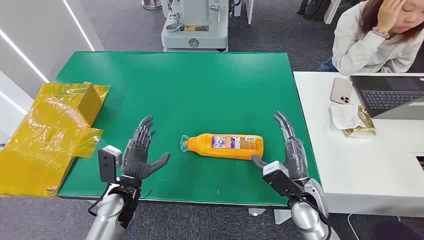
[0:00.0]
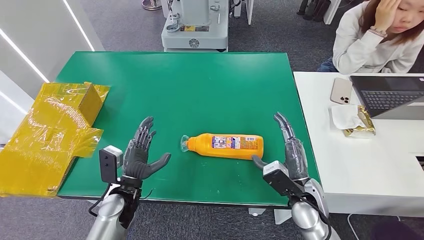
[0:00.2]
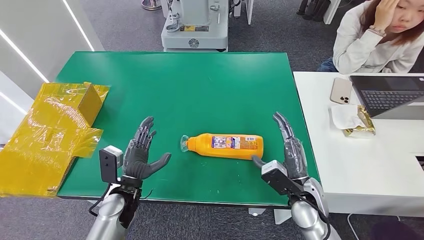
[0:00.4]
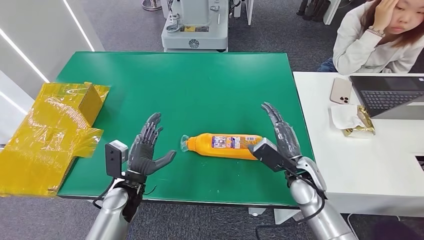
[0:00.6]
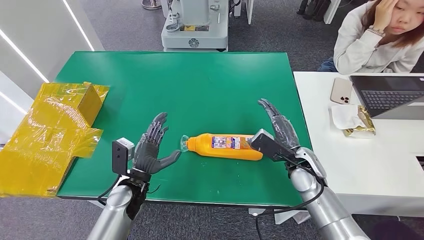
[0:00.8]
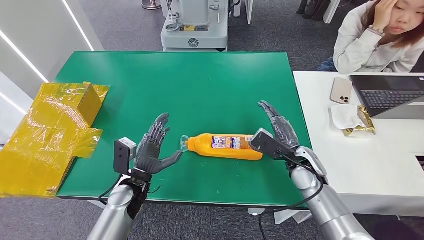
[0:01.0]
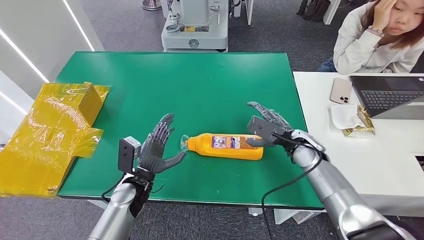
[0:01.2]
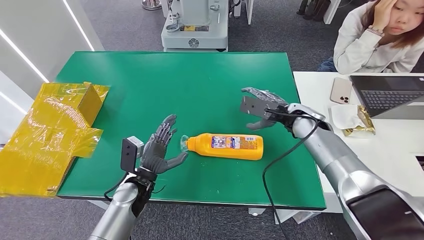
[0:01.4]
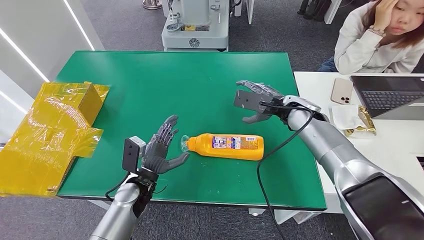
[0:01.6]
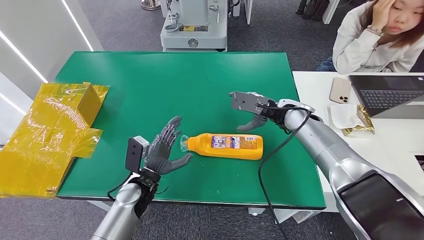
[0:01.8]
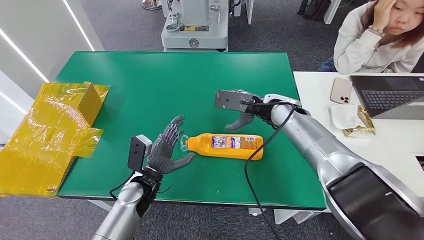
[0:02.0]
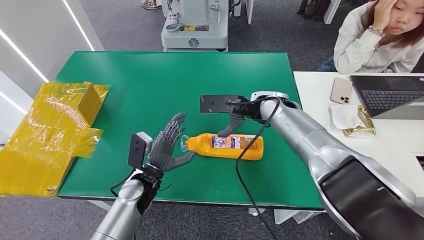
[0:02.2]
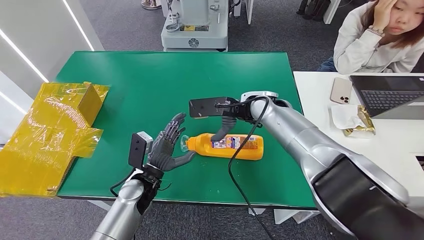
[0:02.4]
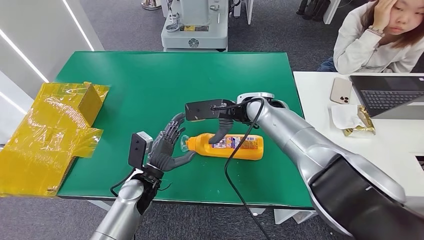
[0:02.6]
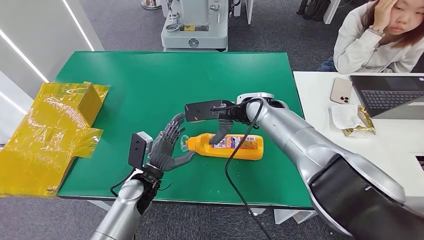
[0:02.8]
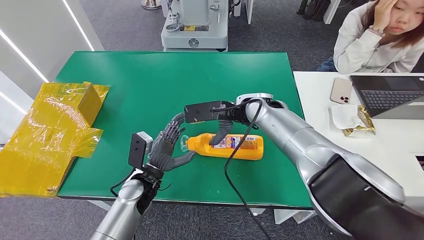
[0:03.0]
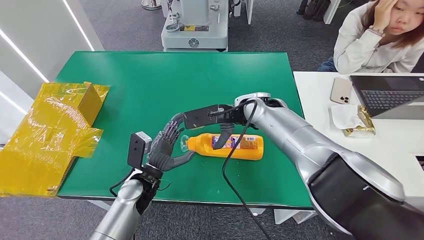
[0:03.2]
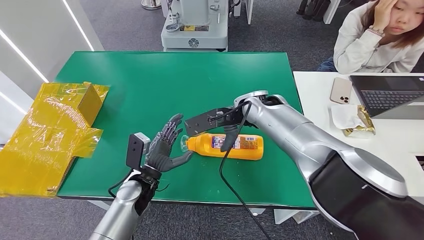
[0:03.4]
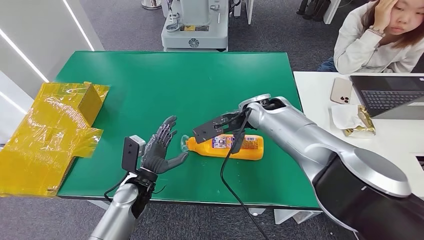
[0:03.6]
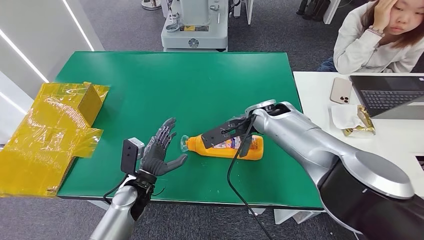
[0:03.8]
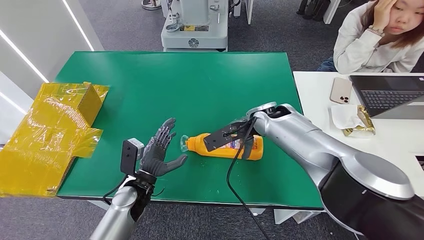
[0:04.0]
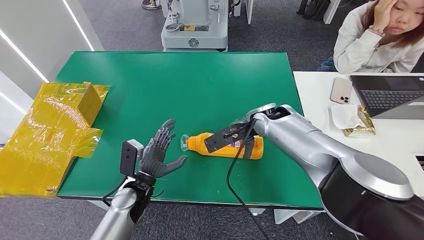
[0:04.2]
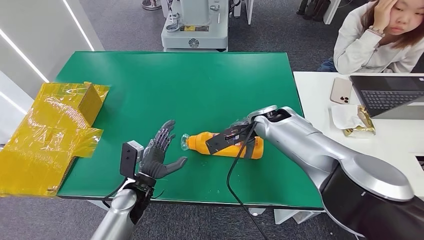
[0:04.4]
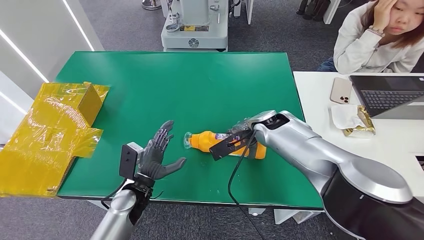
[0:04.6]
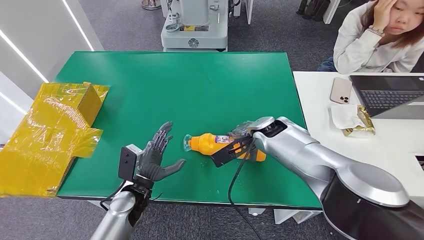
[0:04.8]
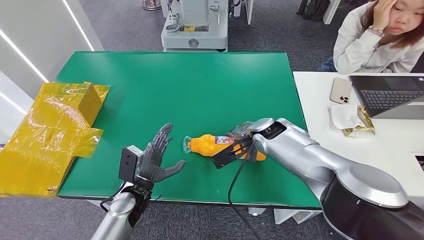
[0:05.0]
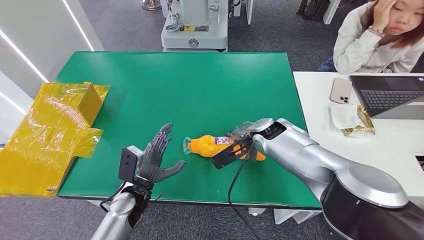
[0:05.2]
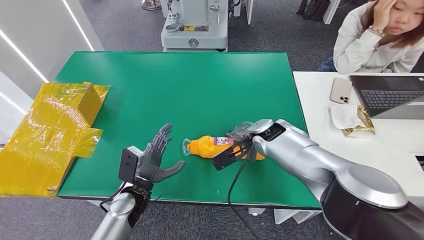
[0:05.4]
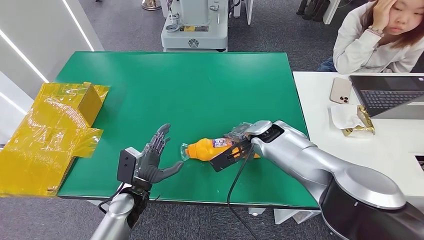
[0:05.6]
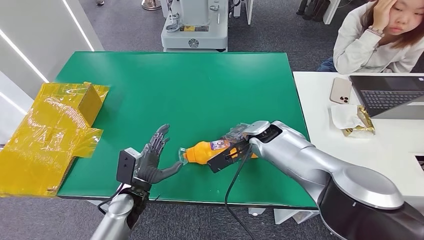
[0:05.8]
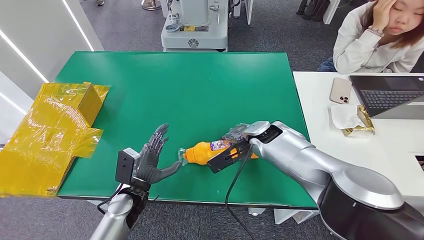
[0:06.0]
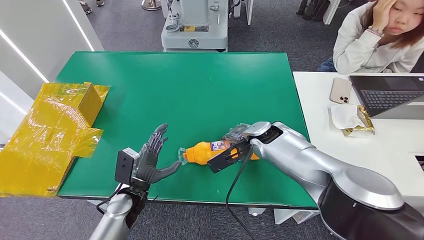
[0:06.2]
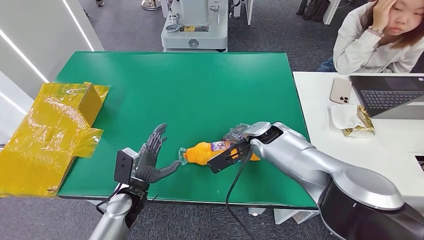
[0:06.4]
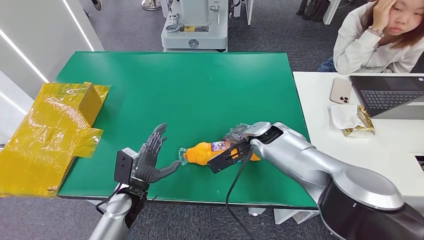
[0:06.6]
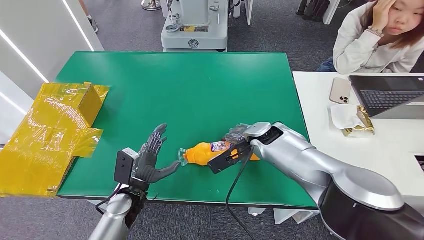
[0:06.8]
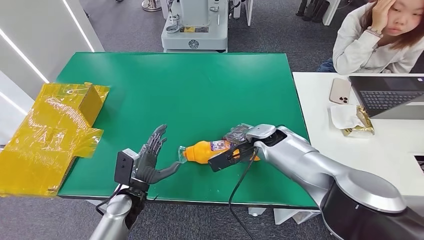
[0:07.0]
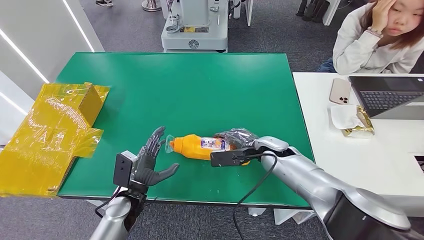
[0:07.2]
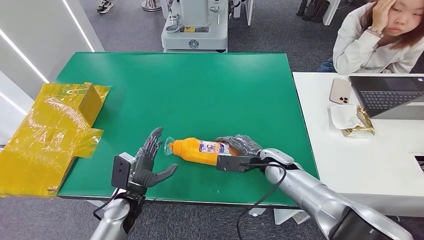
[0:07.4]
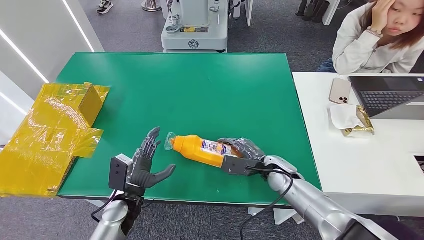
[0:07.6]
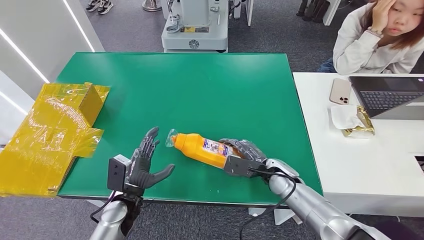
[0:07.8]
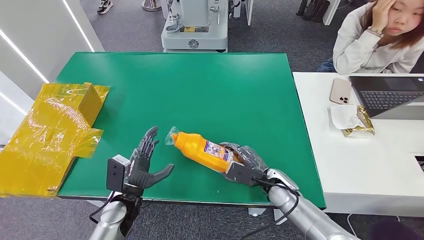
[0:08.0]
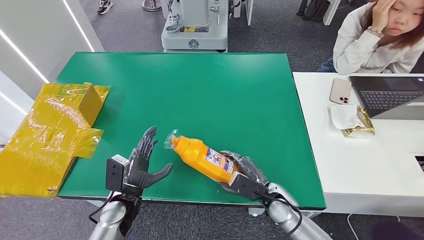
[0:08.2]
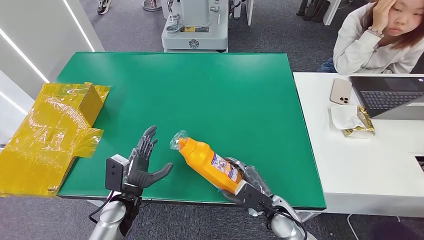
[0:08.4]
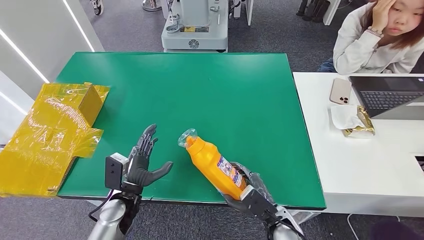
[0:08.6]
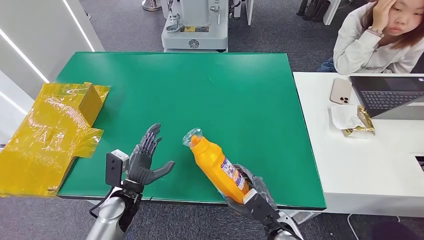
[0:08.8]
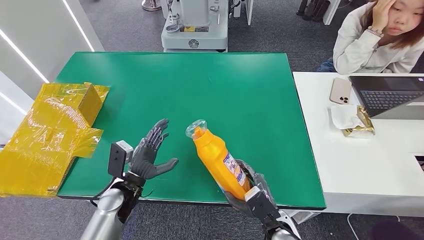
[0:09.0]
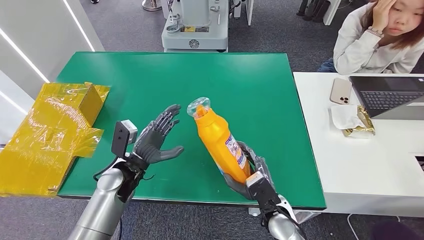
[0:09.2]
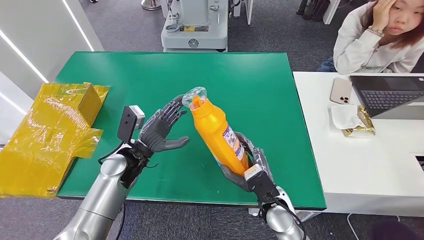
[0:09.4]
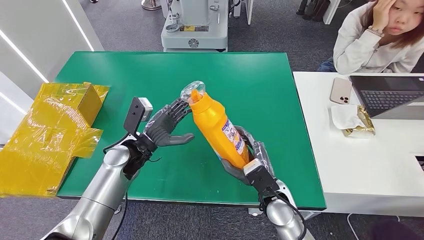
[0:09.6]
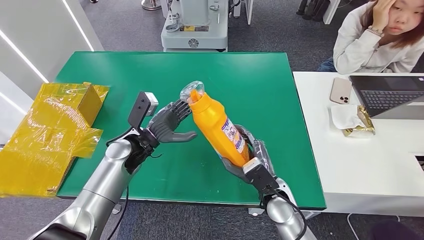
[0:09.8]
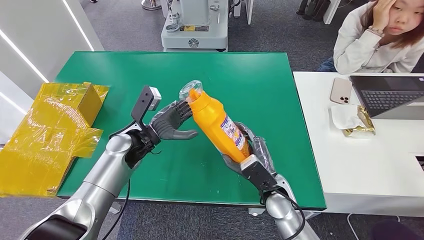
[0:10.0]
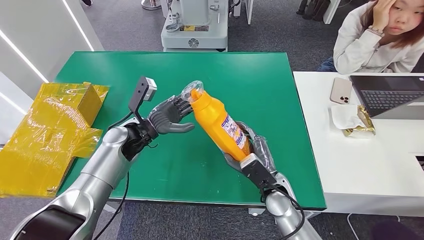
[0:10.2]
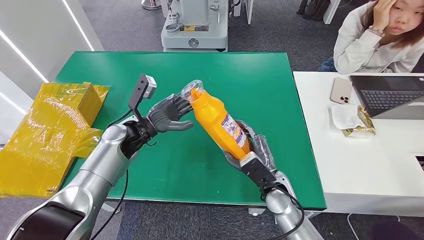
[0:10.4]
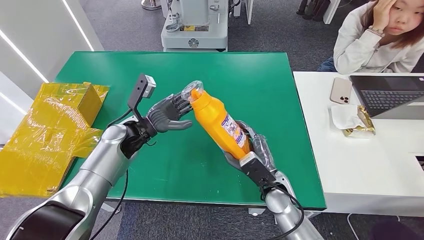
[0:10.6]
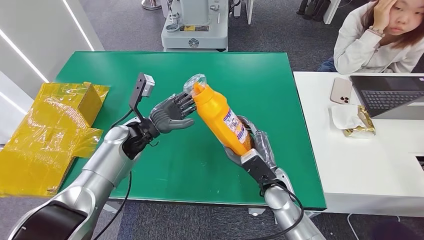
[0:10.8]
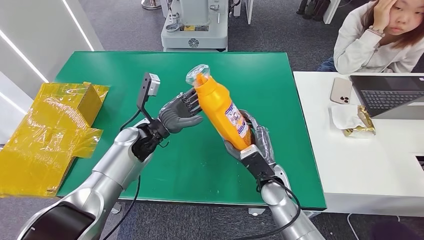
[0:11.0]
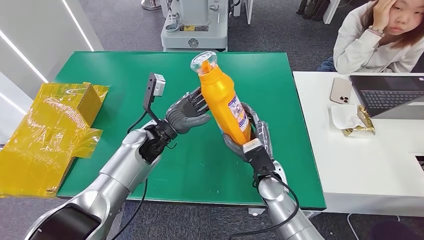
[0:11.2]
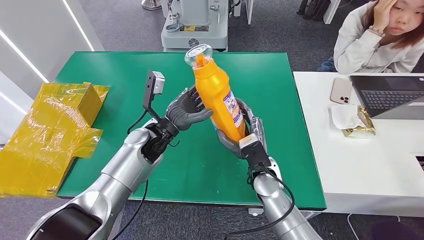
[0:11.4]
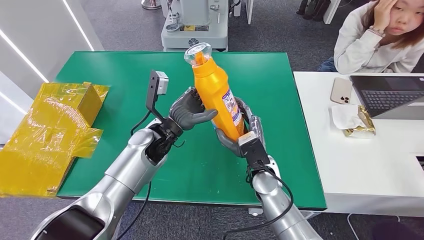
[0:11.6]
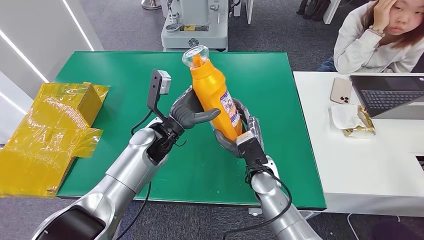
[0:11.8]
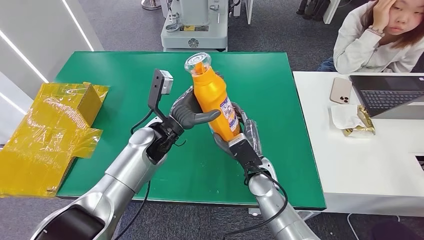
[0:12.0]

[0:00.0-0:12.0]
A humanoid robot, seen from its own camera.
Step, 0:00.0 to 0:10.4: Pick up the bottle from the table.
0:01.6 to 0:03.0: The right hand travels to the left by some 10 cm.
0:03.0 to 0:04.4: The right hand changes place by some 5 cm.
0:04.4 to 0:06.0: The hands move only a little.
0:06.0 to 0:07.6: The right hand shifts about 15 cm downward, backward and to the right.
0:07.6 to 0:09.0: The right hand travels backward by some 15 cm.
0:09.0 to 0:10.4: The right hand heads forward, covering roughly 10 cm. Meanwhile the left hand travels forward and upward by approximately 15 cm.
0:10.4 to 0:12.0: The right hand changes place by some 5 cm, while the left hand is displaced to the right by approximately 10 cm.

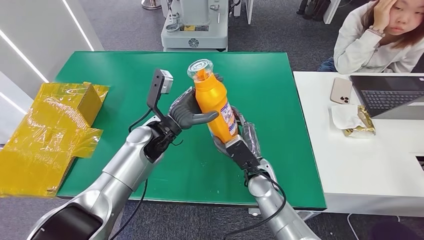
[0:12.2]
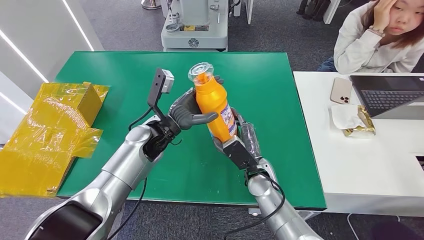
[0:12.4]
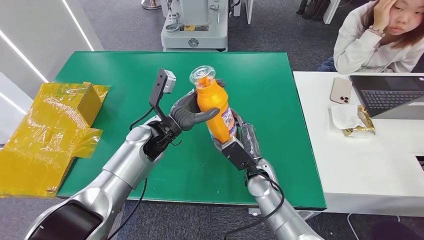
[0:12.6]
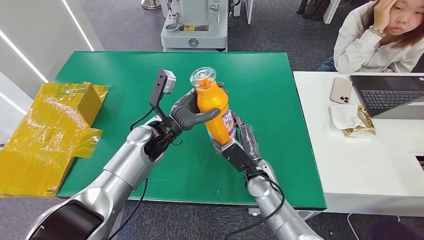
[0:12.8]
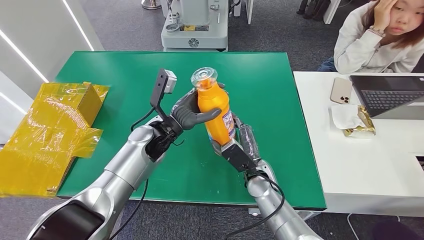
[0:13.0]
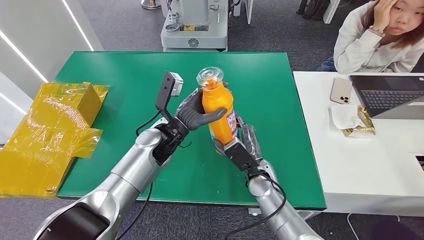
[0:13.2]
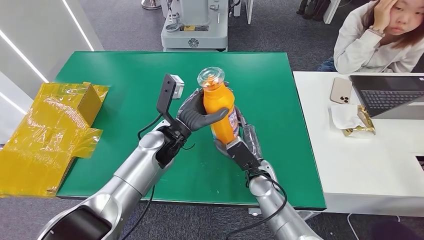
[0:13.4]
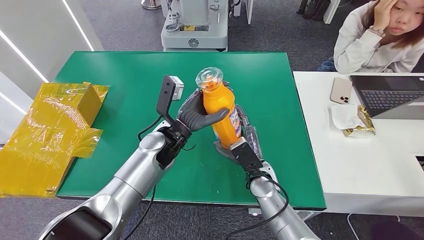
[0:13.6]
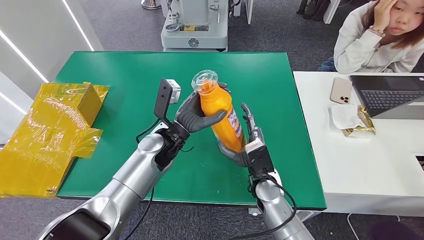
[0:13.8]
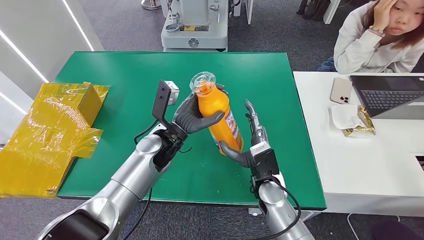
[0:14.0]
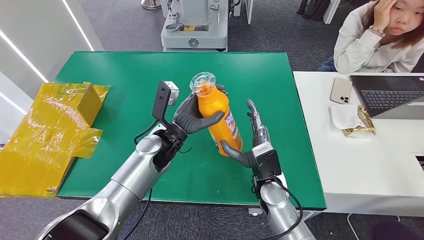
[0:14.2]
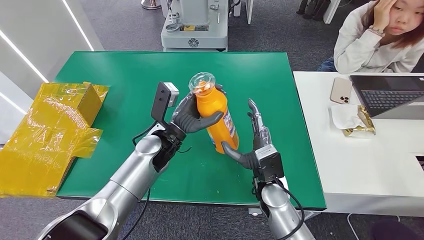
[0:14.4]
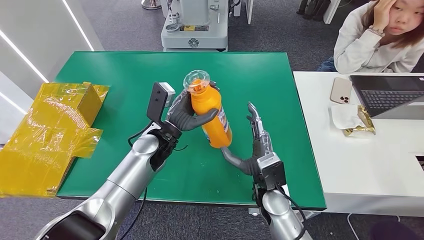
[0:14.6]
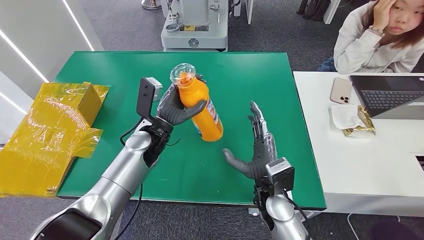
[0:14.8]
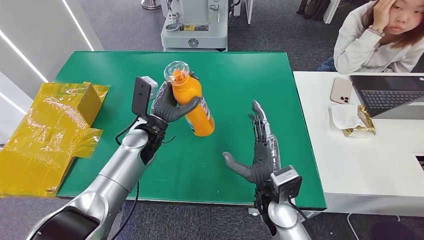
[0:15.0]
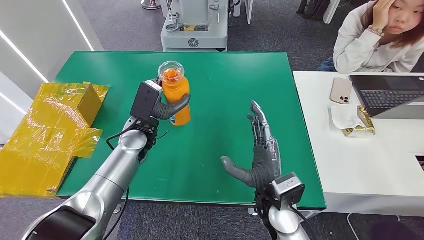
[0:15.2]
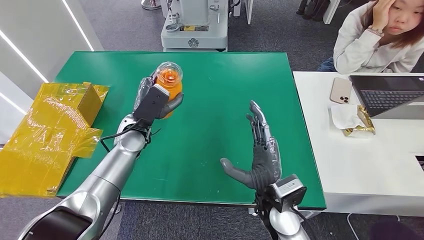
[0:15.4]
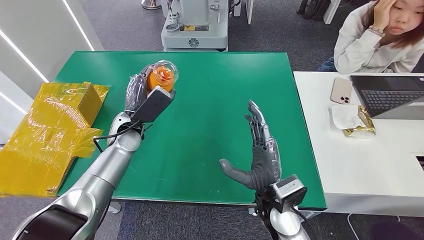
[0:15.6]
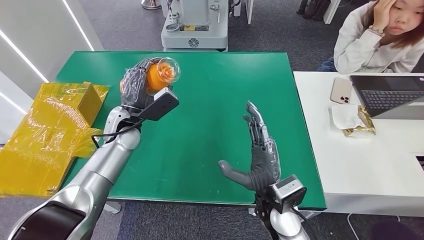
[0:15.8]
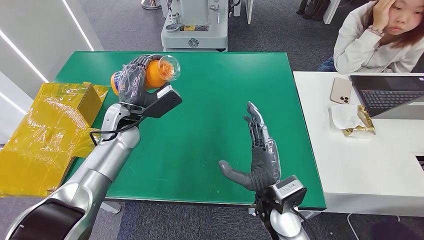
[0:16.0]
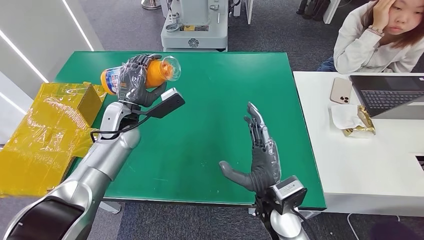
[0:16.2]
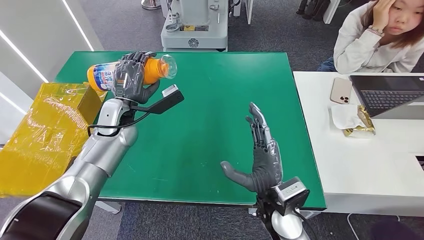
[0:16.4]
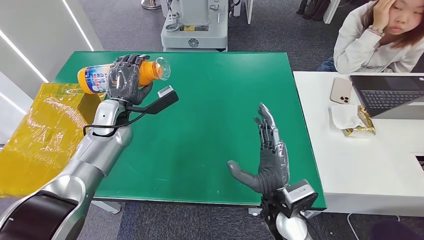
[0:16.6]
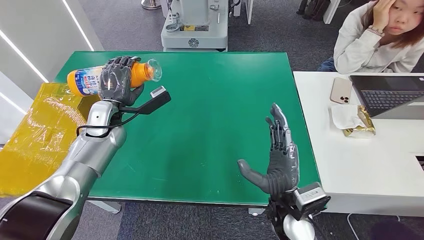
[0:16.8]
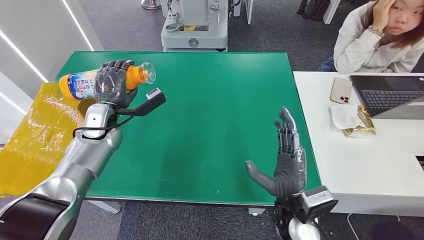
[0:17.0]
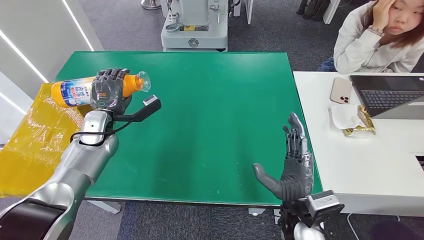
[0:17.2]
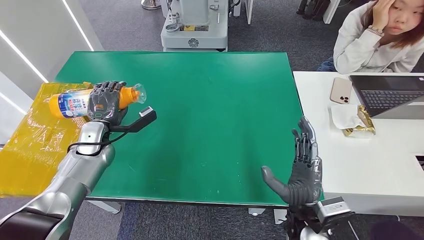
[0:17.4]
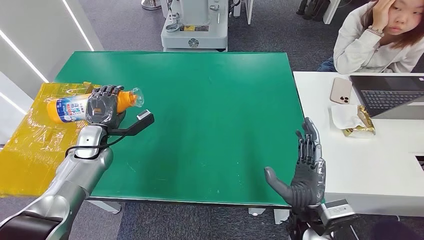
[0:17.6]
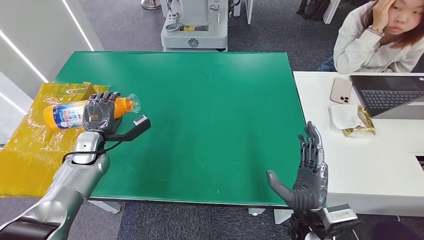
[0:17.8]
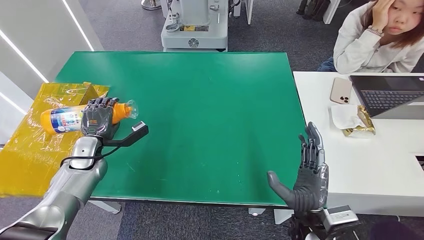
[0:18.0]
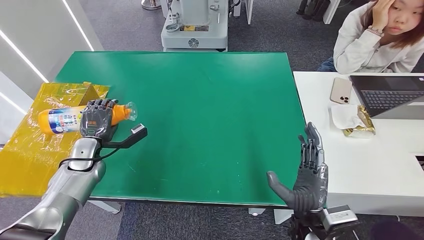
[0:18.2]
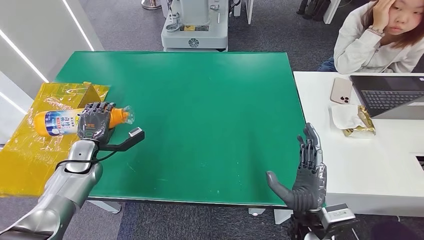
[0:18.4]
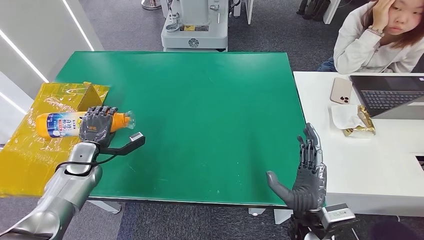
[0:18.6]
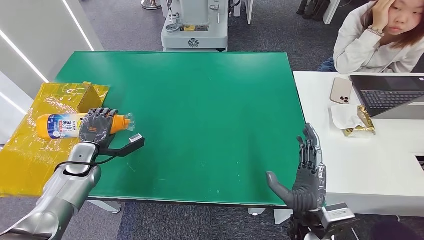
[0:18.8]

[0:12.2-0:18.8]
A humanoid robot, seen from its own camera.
0:12.2 to 0:13.8: The hands make only small movements.
0:13.8 to 0:15.4: The left hand travels to the left by about 10 cm. The right hand goes approximately 10 cm backward and upward.
0:15.4 to 0:17.2: The left hand moves to the left, roughly 10 cm. The right hand shifts by some 5 cm.
0:17.2 to 0:18.8: The left hand shifts some 10 cm downward, to the left and backward.
